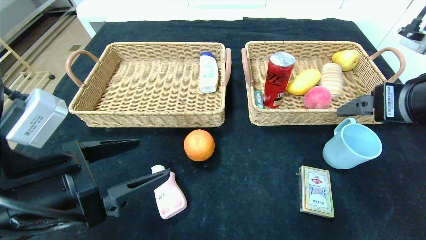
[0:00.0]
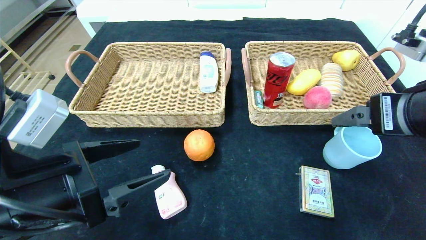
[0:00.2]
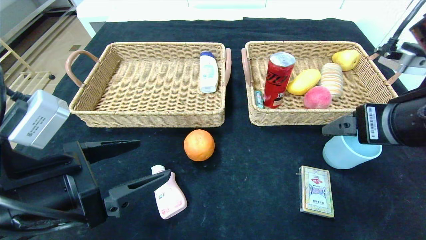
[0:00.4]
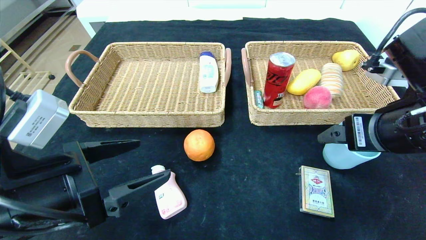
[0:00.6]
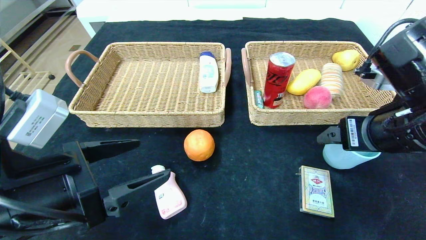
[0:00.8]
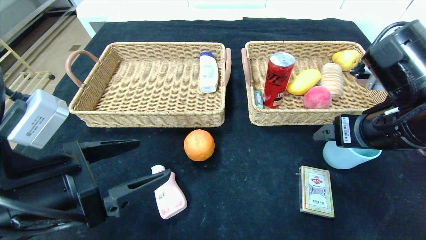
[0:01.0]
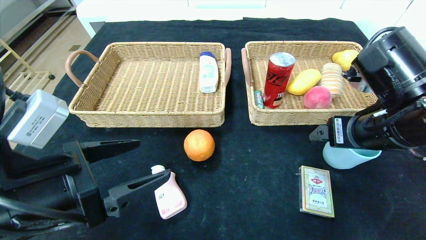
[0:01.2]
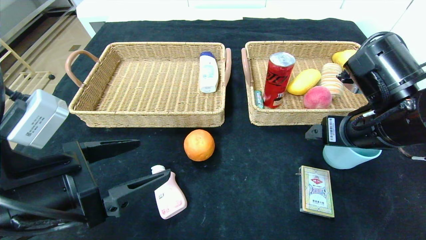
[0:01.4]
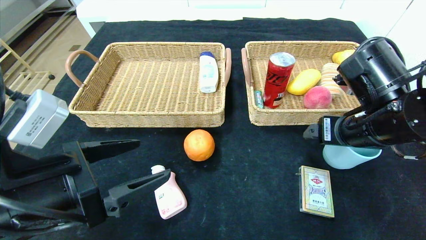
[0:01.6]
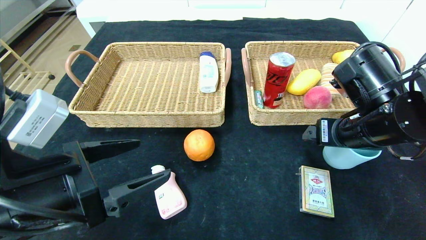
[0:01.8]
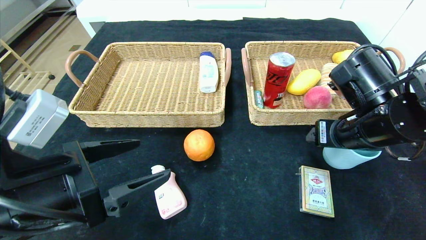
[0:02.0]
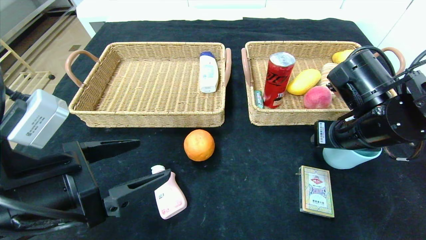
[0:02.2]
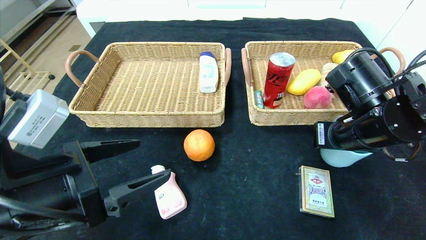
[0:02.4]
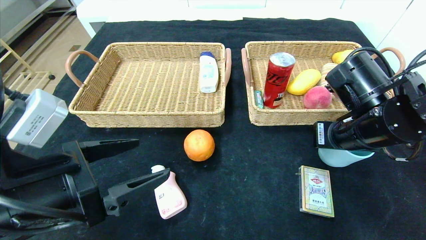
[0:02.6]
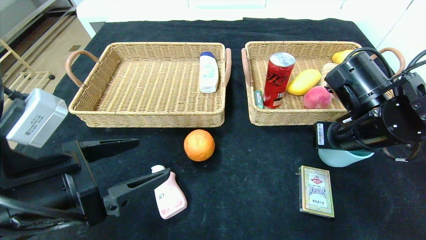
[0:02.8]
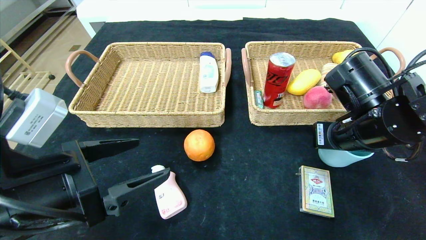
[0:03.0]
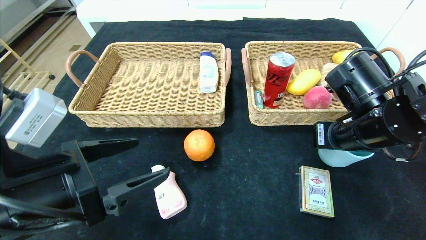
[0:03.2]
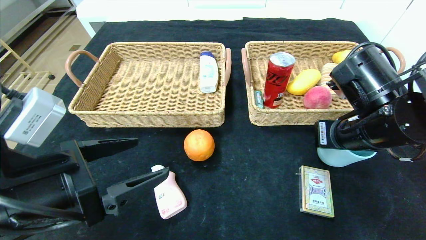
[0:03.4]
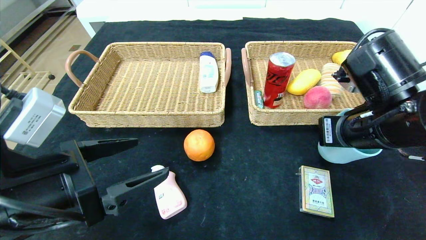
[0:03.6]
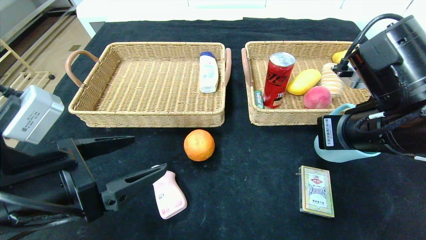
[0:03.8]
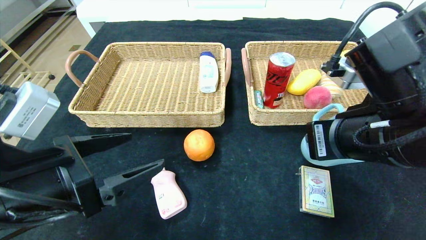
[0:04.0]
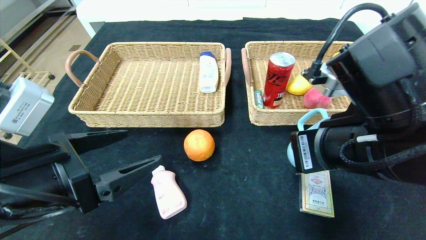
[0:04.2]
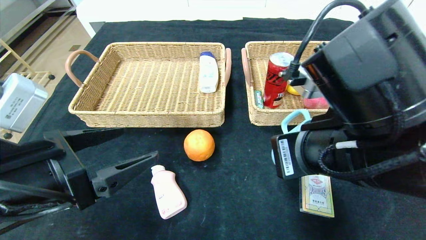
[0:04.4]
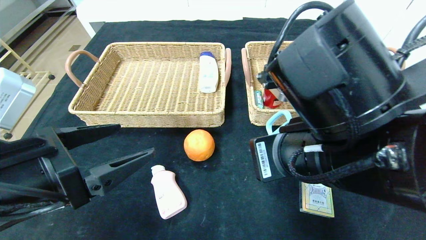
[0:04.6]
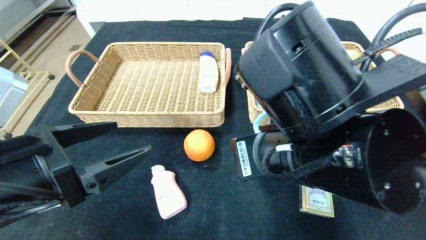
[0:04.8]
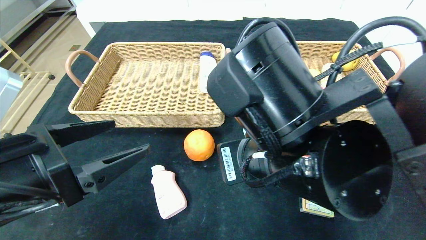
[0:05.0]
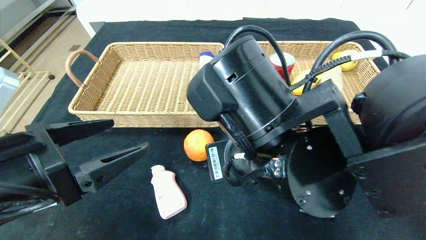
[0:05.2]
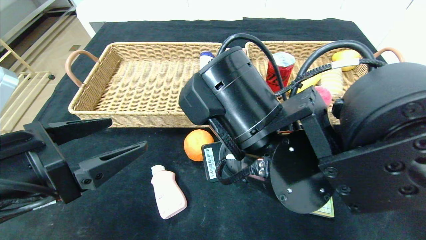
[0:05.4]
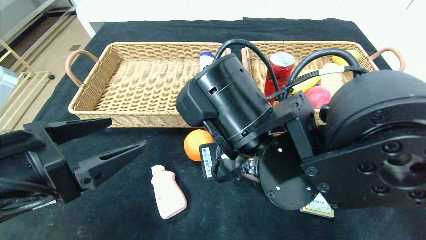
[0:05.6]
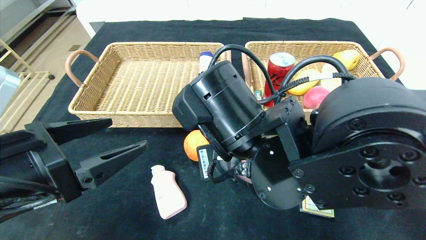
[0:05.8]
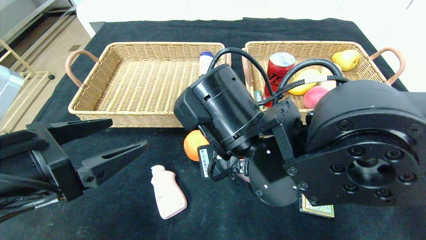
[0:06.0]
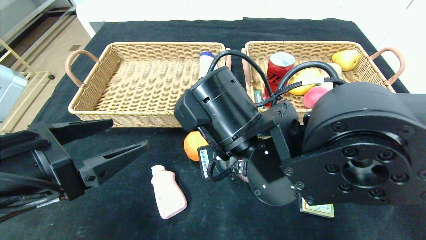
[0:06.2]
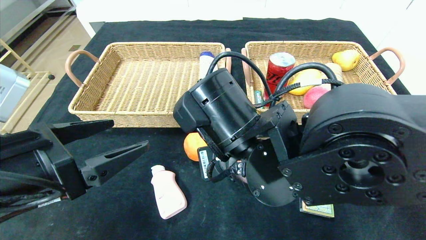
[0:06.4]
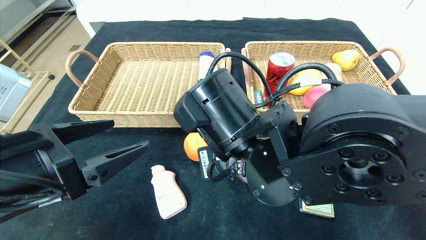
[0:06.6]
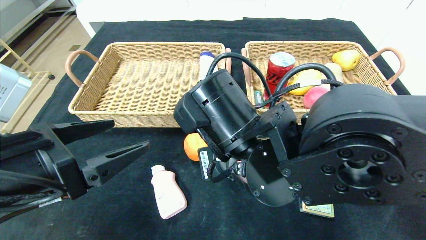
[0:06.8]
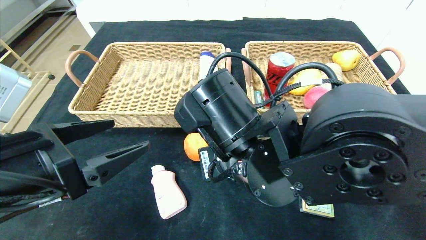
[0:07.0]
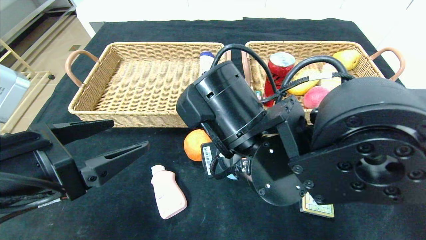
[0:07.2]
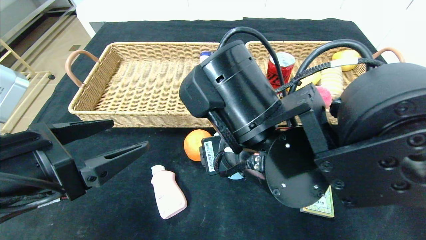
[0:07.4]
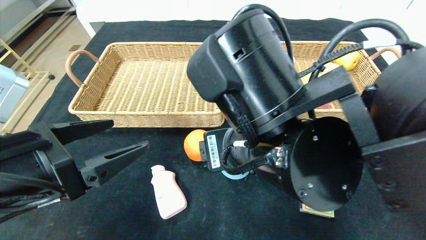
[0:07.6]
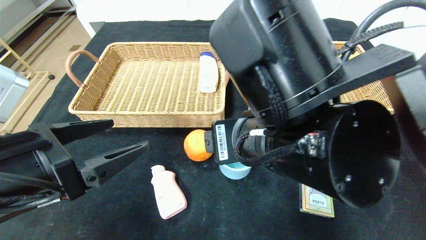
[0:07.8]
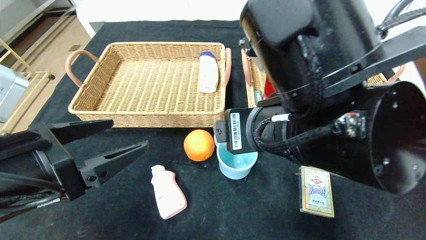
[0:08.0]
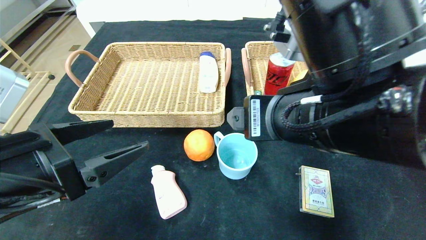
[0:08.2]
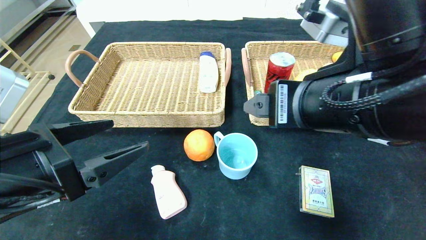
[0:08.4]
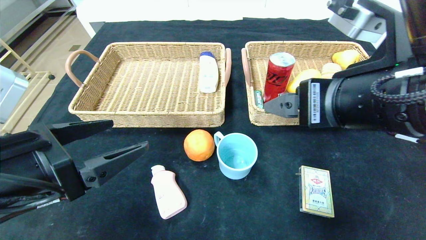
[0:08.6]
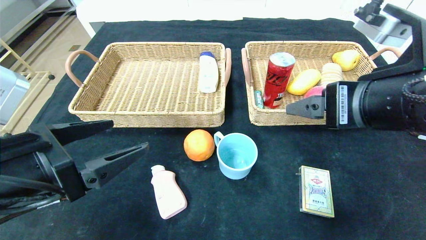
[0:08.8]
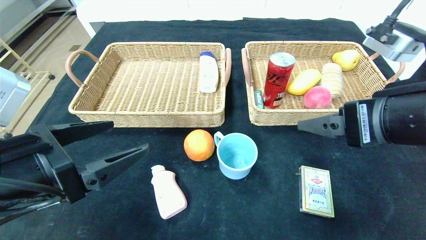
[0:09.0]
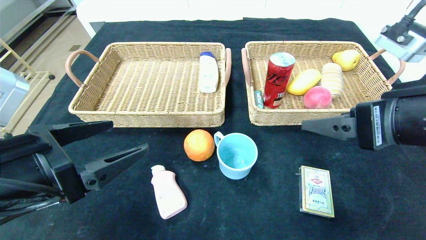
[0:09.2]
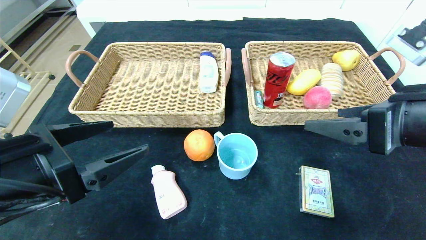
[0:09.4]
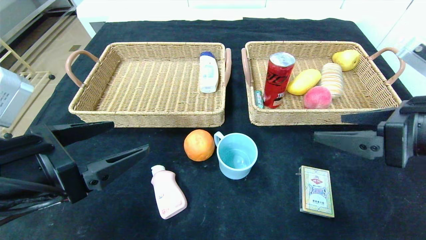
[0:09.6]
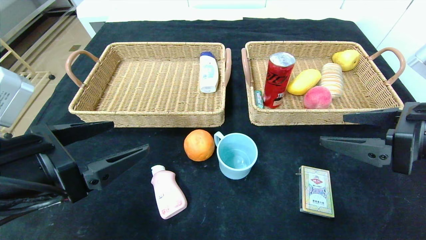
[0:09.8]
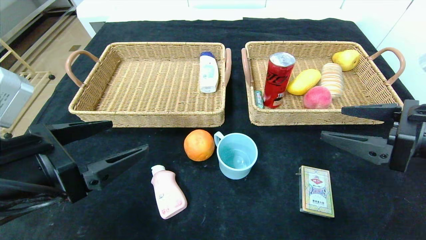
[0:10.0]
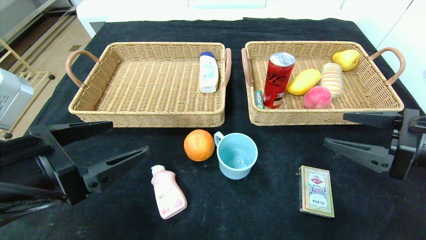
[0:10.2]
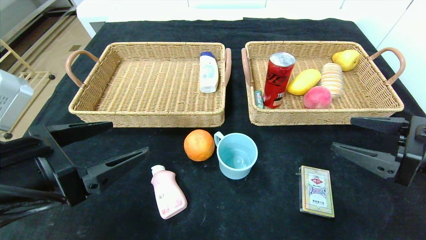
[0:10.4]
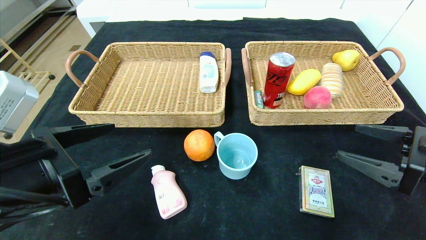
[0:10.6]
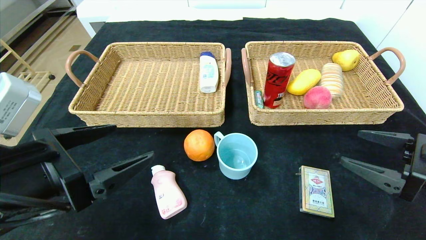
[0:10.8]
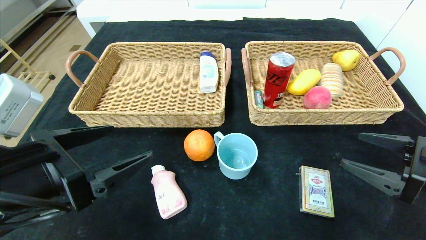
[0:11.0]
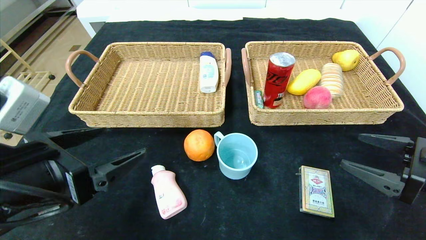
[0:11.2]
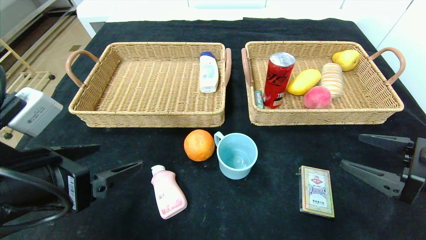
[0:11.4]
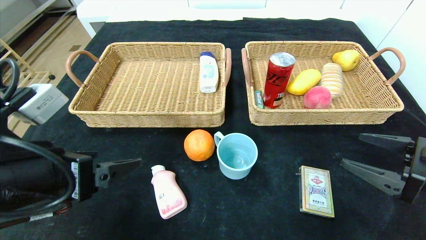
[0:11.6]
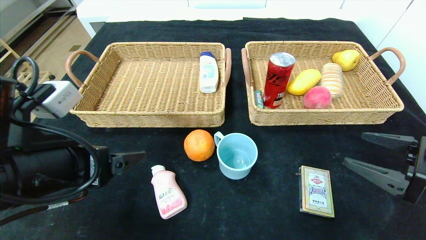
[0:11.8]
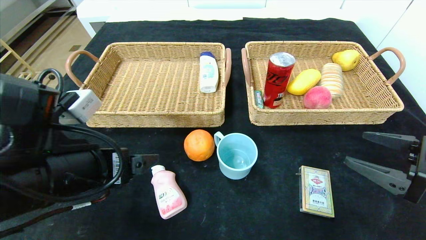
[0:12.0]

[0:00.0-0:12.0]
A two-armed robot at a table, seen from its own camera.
Step, 0:00.0 to 0:07.2: Place the blue cup in the center of the table.
0:00.0 to 0:01.6: The right gripper travels downward and forward by about 10 cm.
0:01.6 to 0:03.0: The right gripper closes up.
0:03.0 to 0:04.4: The right gripper travels backward and to the left by approximately 15 cm.
0:04.4 to 0:06.0: The right gripper shifts about 10 cm to the left.
0:06.0 to 0:07.6: The right gripper opens its fingers.
0:07.6 to 0:09.0: The right gripper goes about 15 cm to the right.
0:09.0 to 0:10.4: The right gripper heads to the right and downward, covering approximately 15 cm.
0:10.4 to 0:12.0: The left gripper shifts by roughly 5 cm.

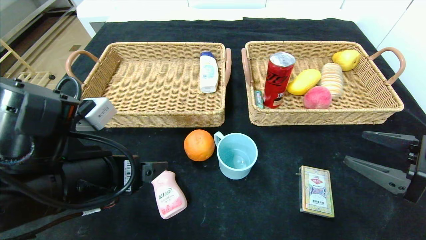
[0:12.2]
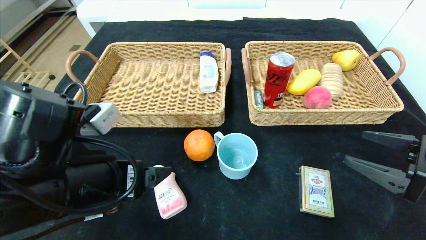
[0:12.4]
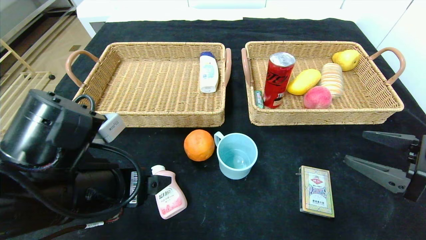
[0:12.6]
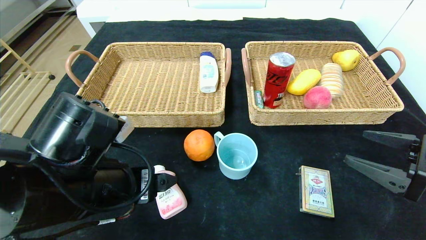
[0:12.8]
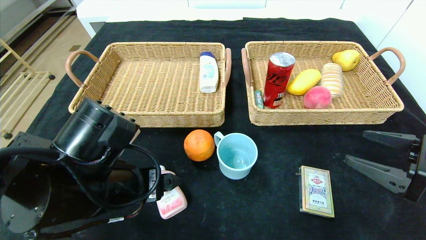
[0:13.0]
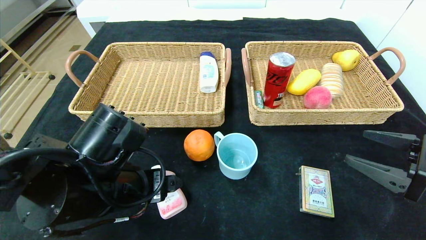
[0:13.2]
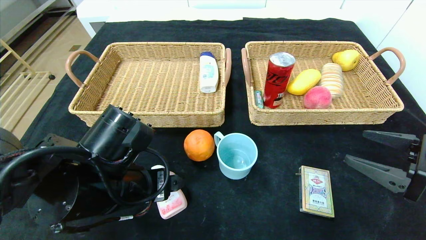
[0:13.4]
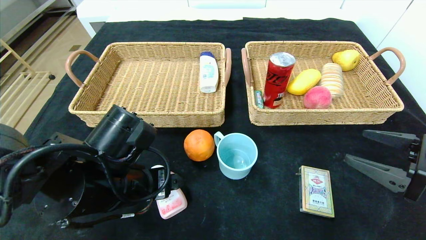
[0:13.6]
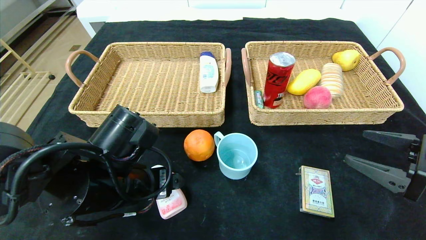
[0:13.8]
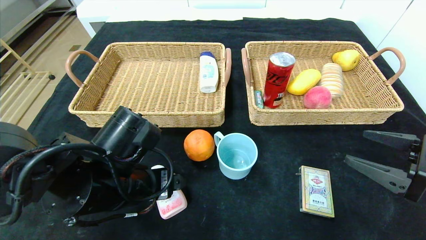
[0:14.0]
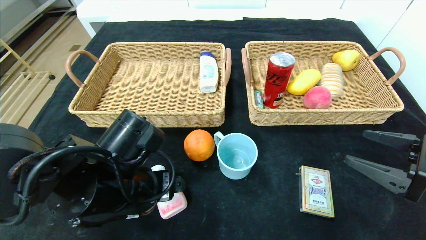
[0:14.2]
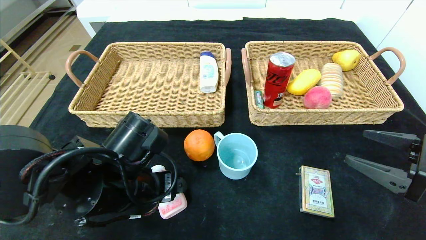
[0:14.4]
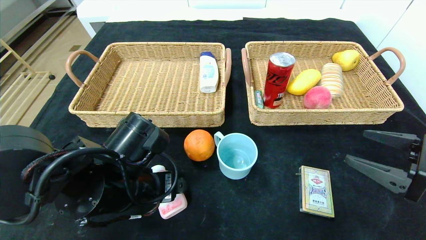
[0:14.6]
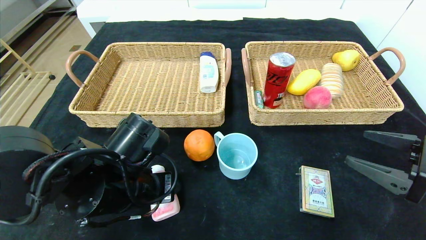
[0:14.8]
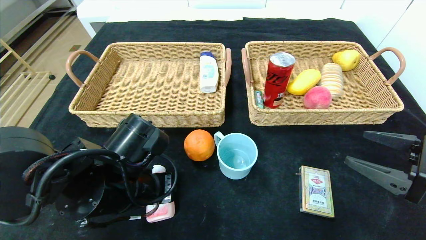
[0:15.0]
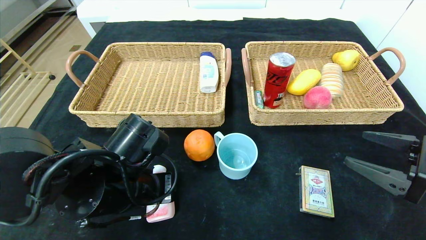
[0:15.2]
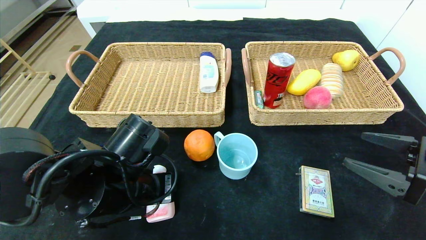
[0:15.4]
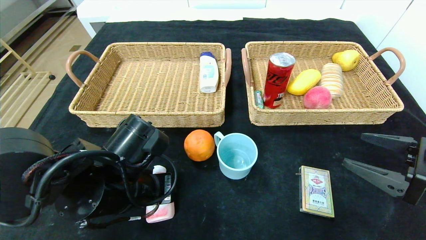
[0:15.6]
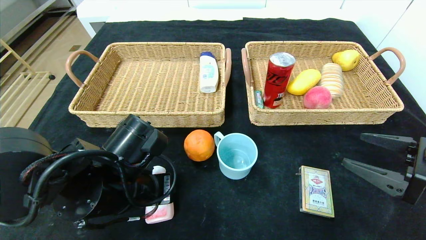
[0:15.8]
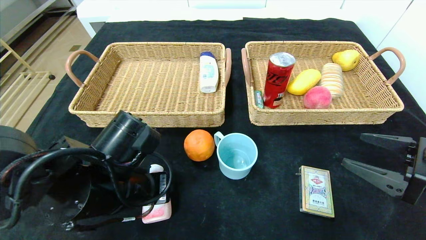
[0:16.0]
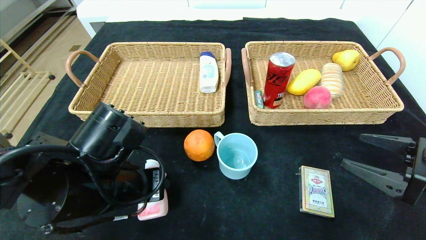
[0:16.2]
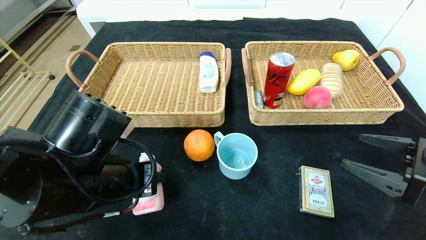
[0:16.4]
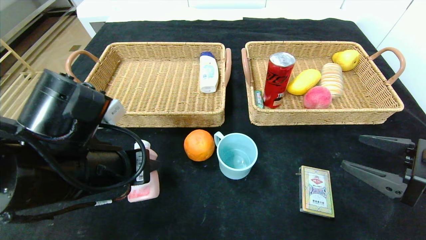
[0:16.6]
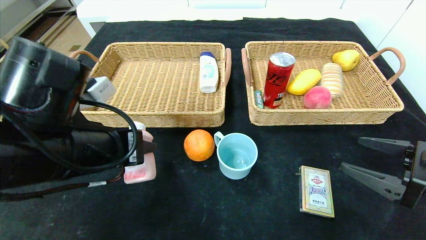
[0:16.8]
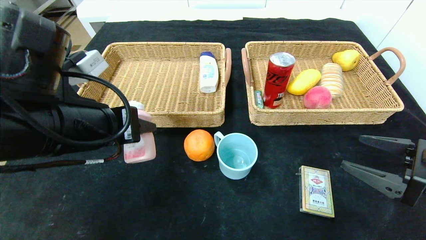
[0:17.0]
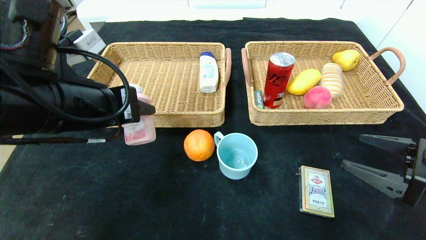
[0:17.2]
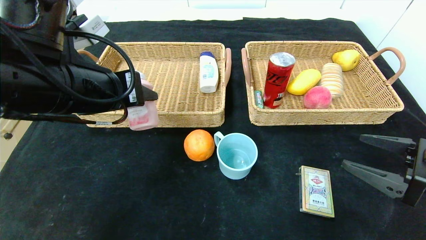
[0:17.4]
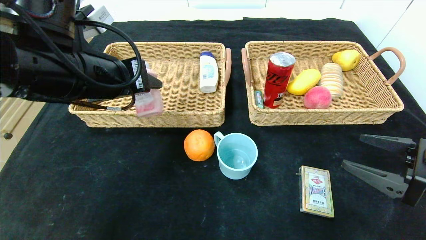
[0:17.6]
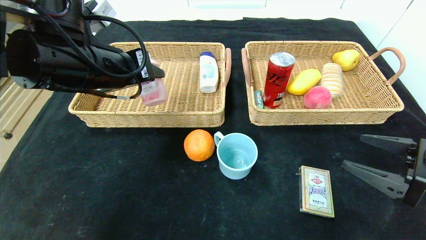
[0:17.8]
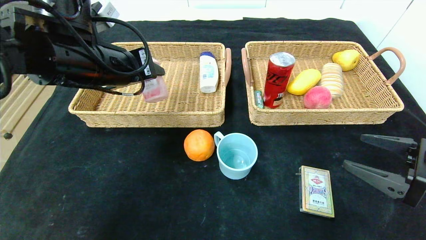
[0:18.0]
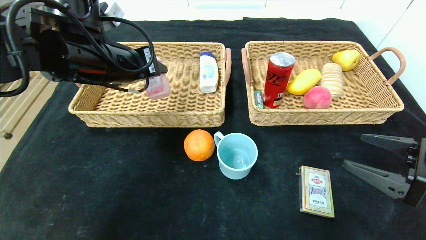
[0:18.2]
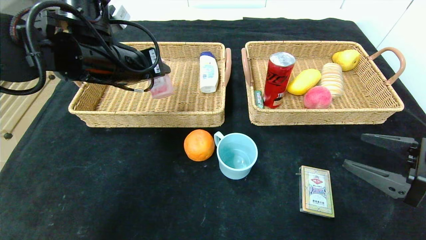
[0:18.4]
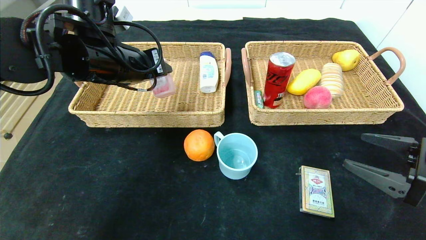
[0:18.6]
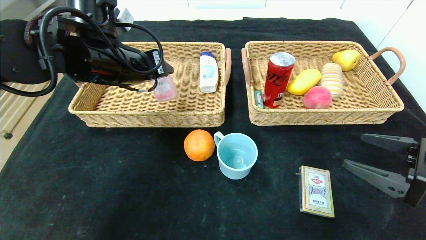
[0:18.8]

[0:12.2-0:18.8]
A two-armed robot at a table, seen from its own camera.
0:12.2 to 0:13.8: The left gripper changes place by some 5 cm.
0:13.8 to 0:15.4: The left gripper closes its fingers.
0:15.4 to 0:17.2: The left gripper moves upward, some 10 cm.
0:17.2 to 0:18.8: The left gripper travels forward by about 10 cm.
